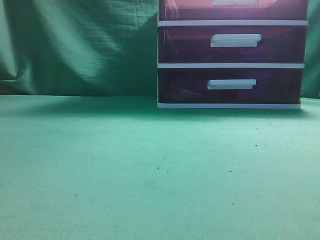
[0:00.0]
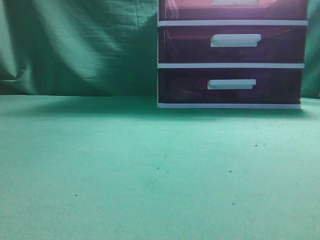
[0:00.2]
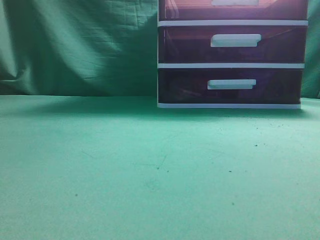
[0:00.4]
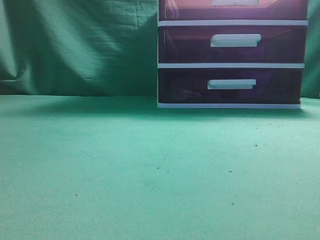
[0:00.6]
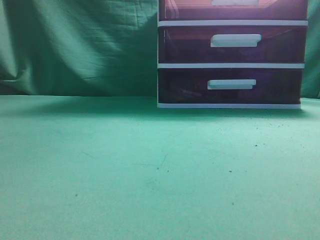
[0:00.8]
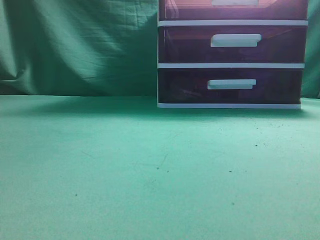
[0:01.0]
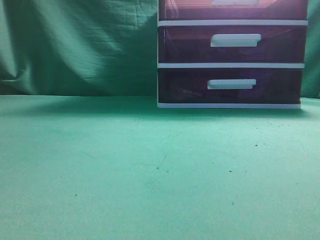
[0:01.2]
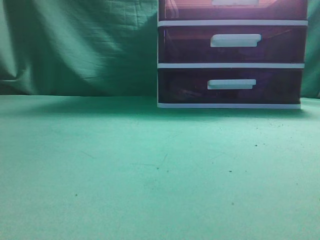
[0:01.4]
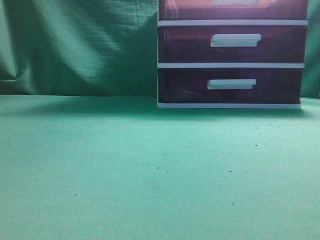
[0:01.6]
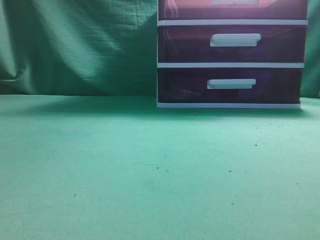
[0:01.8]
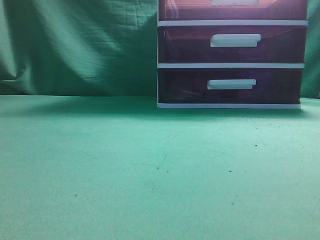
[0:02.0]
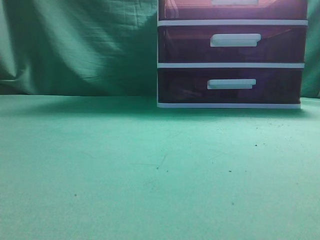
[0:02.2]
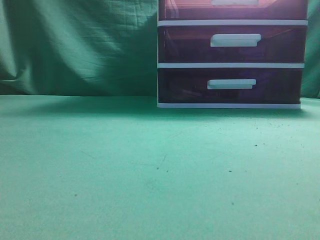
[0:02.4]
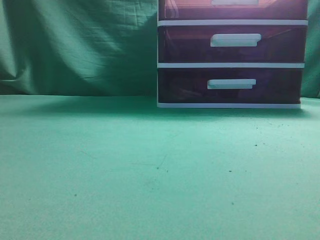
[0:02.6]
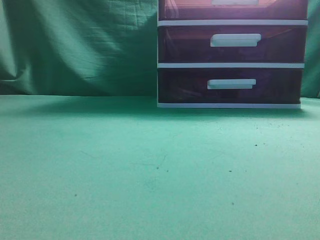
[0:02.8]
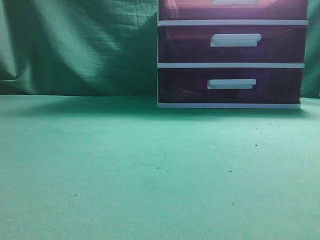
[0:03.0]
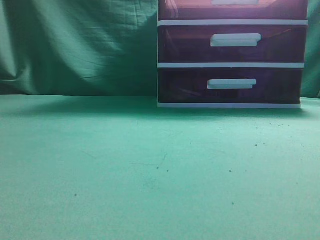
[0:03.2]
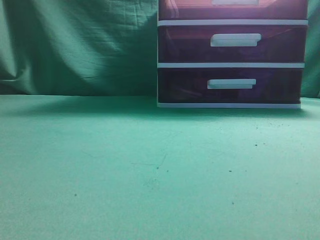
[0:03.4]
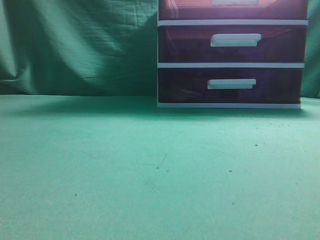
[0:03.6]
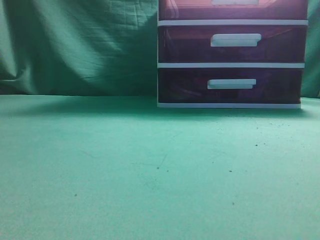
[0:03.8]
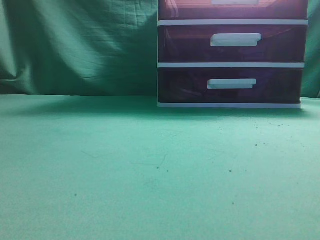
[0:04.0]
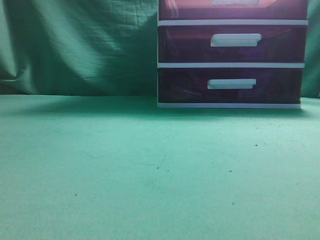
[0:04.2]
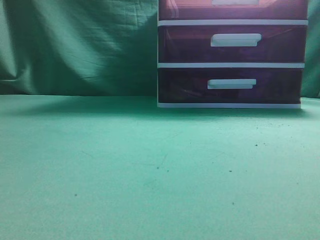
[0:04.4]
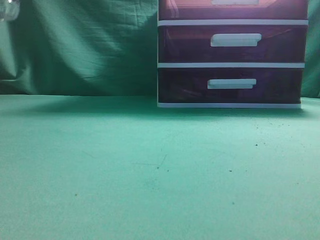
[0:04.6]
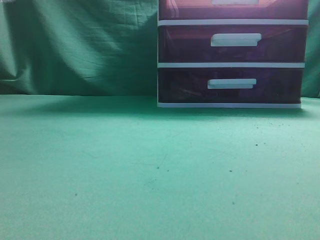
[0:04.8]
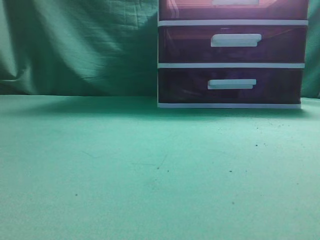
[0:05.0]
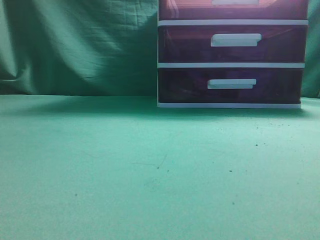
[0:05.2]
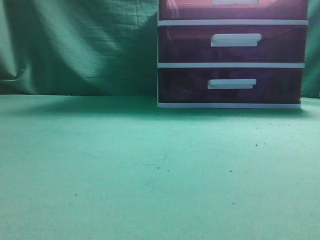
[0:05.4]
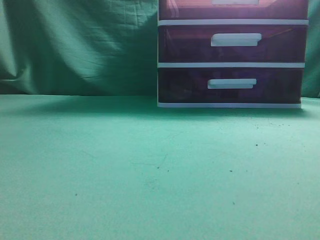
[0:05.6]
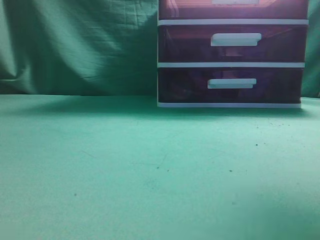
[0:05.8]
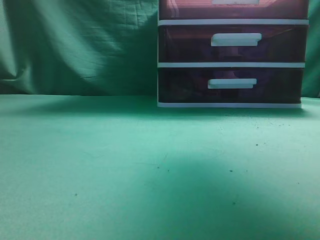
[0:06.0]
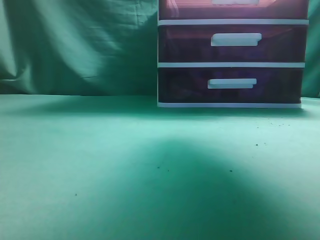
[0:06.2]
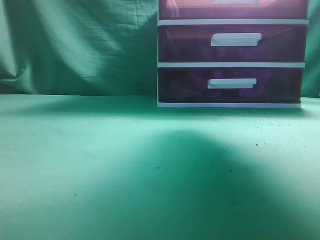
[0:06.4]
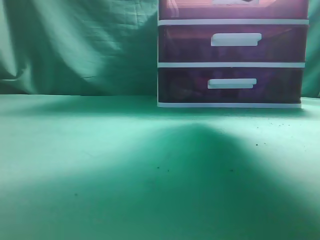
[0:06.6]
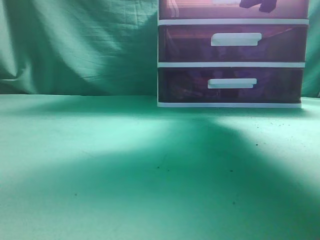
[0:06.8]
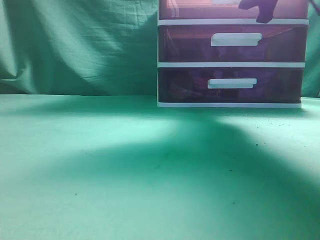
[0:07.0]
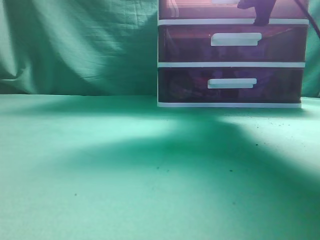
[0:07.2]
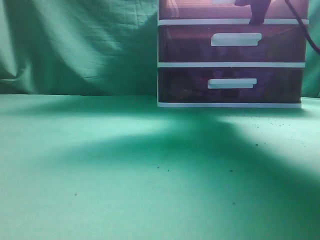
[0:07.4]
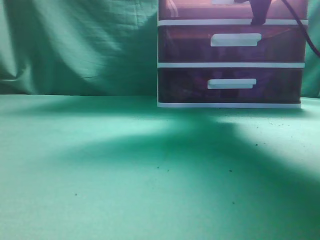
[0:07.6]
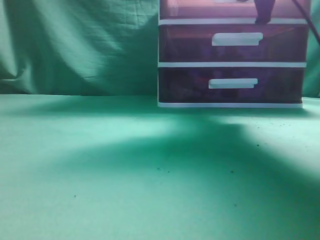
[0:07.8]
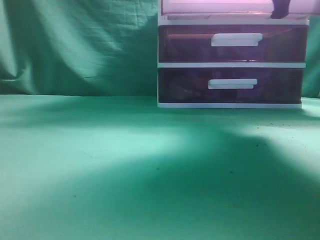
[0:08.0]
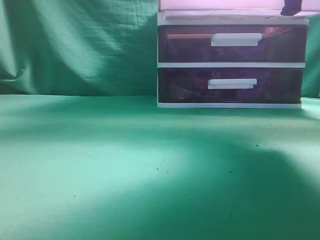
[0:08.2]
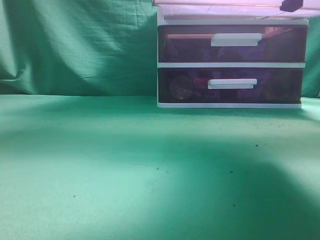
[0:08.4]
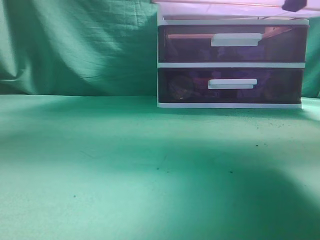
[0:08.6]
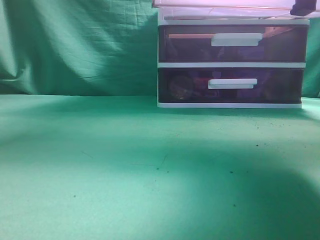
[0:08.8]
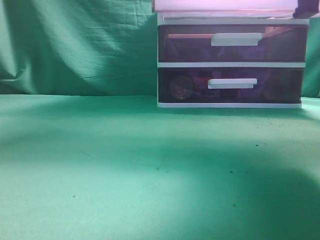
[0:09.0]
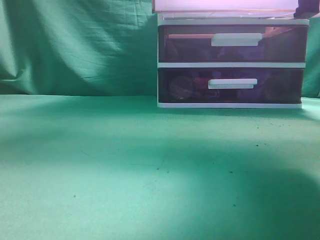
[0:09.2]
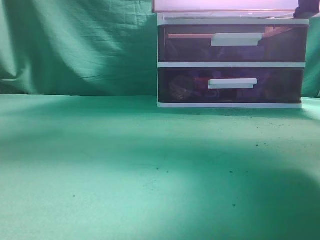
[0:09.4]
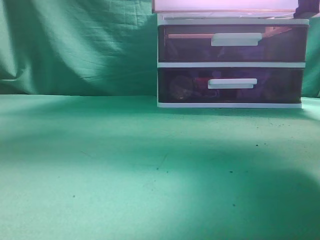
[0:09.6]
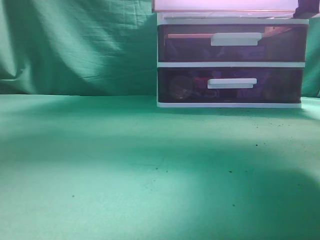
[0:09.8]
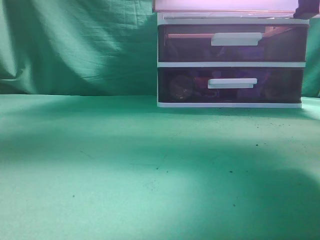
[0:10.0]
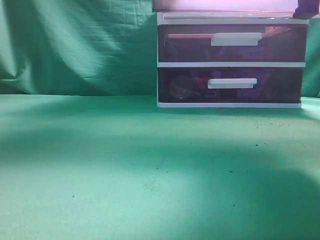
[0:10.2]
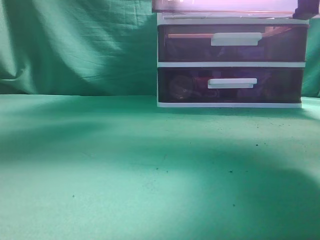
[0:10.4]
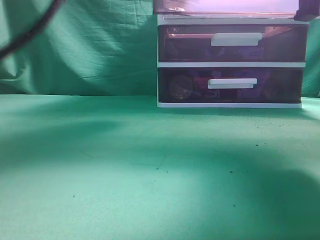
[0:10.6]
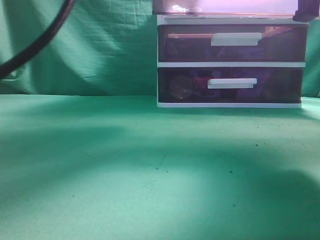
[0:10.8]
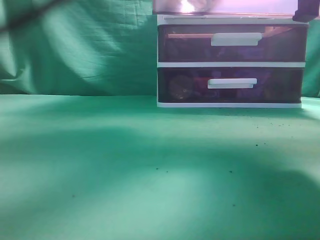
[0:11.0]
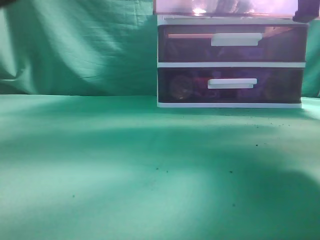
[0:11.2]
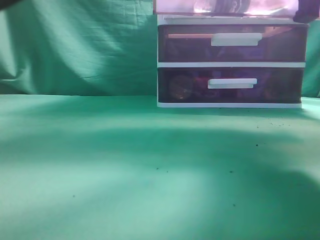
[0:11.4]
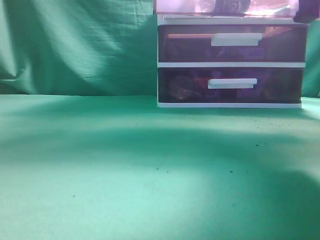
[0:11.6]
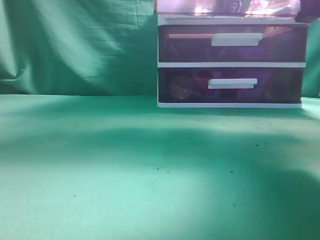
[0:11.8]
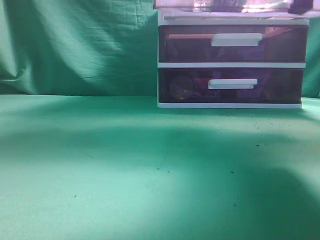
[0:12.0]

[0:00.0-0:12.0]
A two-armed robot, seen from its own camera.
Task of the whole recording: place the water bottle into the drawer.
Step, 0:00.0 to 0:08.8: Open the drawer.
Step, 0:09.0 to 0:11.2: Place the water bottle inside the drawer.
0:04.4 to 0:06.0: The left gripper heads upward and backward, covering roughly 10 cm. The right gripper is displaced forward and upward by approximately 35 cm.
0:06.0 to 0:07.6: The right gripper moves forward and downward, some 15 cm, and opens and closes again.
0:07.6 to 0:09.0: The right gripper heads backward, covering roughly 15 cm.
0:09.0 to 0:10.4: The left gripper shifts approximately 25 cm to the right and forward.
0:10.4 to 0:12.0: The left gripper travels upward, to the left and backward by some 20 cm, and closes its fingers.

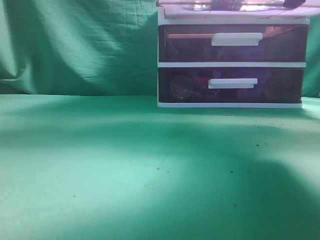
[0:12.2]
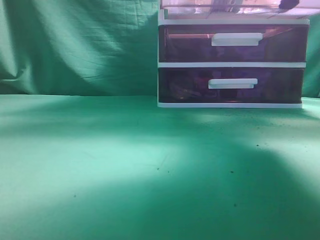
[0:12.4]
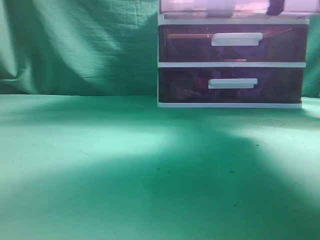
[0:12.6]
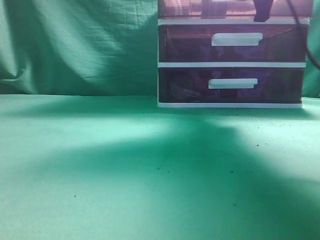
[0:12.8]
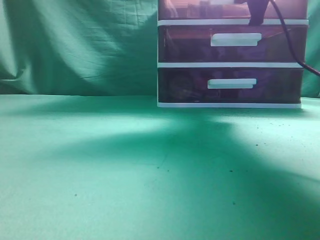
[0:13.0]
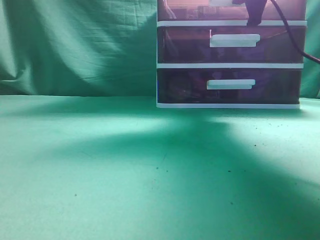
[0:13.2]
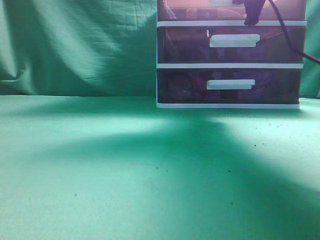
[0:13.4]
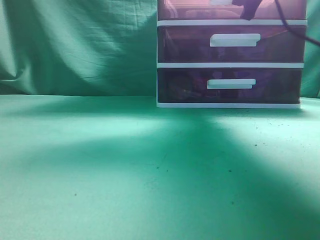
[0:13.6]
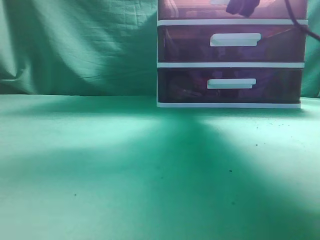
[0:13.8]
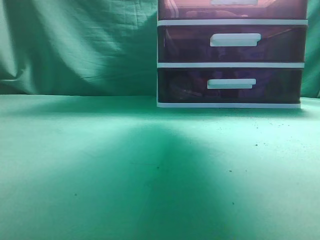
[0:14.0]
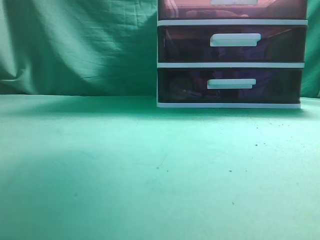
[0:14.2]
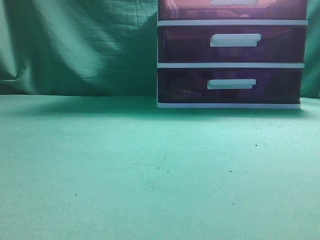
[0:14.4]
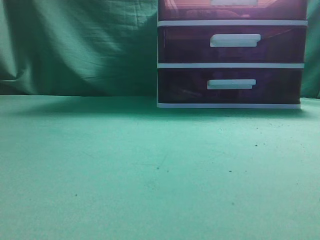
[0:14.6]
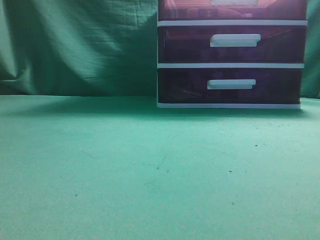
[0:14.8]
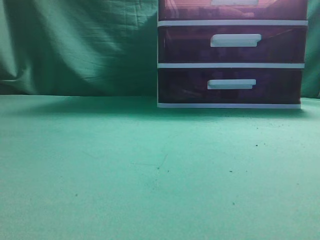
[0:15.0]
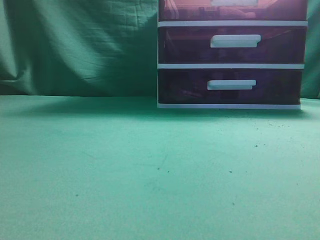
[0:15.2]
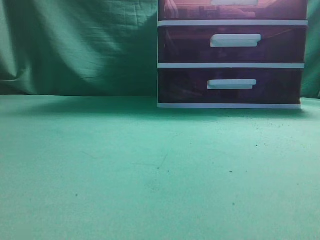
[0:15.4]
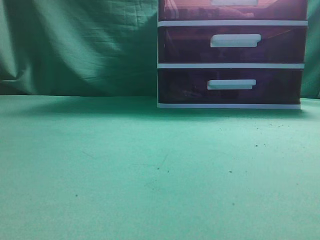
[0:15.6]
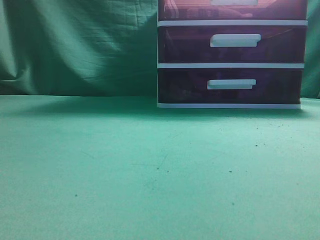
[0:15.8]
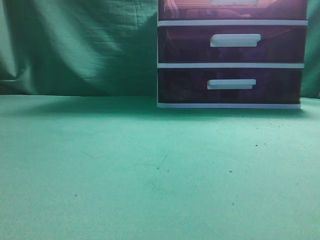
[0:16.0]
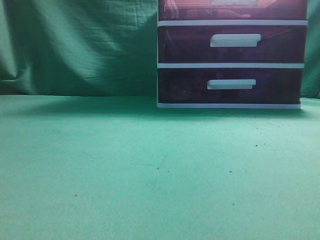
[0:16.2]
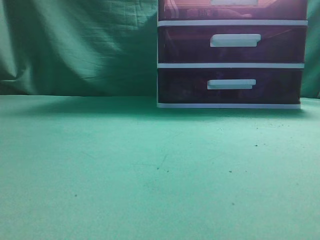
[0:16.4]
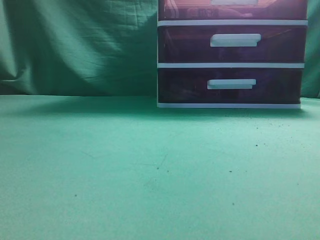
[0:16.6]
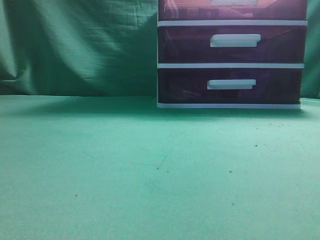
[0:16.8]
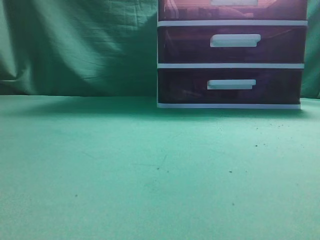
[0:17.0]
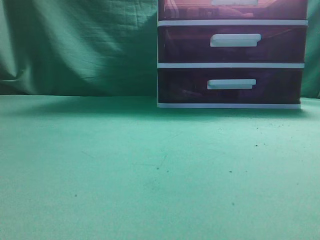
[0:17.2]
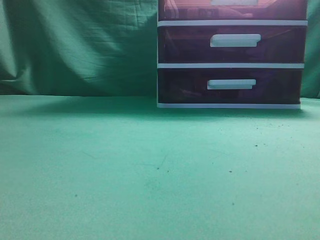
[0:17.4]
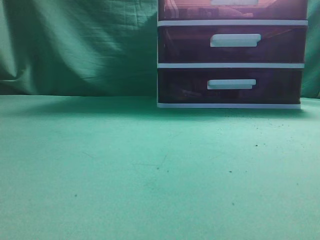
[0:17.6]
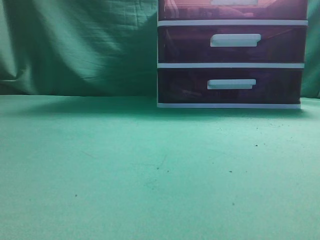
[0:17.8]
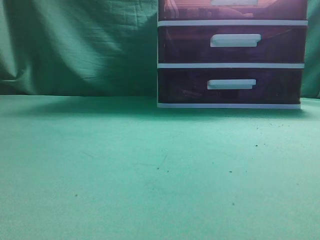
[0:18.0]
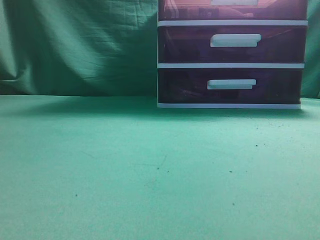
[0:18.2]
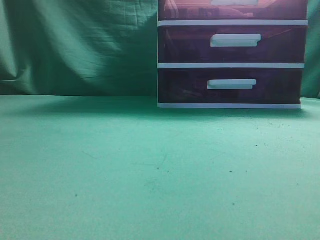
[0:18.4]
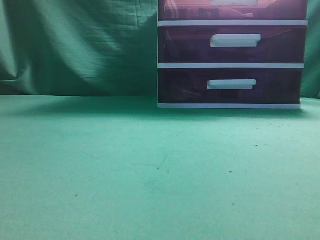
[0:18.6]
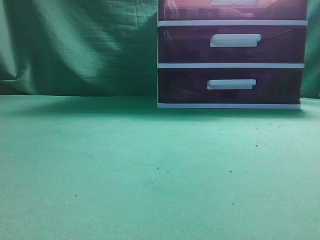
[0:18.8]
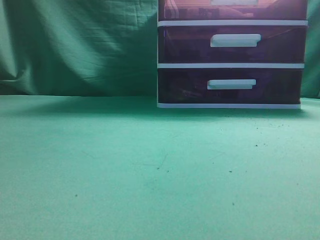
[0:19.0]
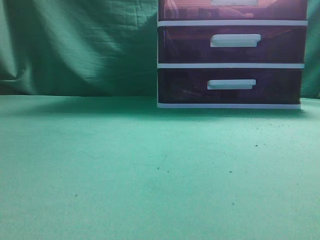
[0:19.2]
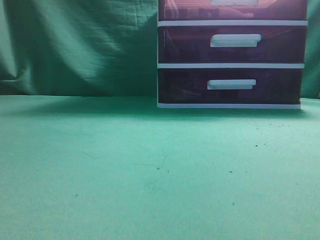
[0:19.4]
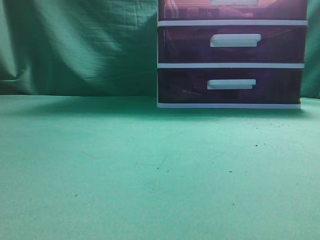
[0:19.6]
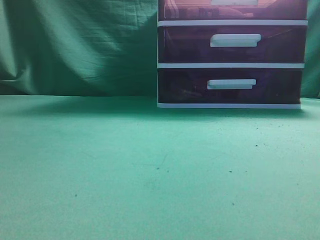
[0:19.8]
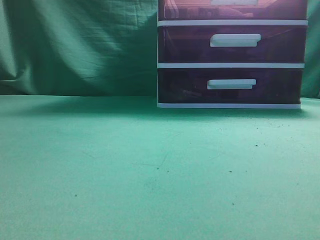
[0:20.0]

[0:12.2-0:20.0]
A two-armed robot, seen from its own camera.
Task of the whole recording: place the water bottle into the drawer.
Step, 0:12.2 to 0:13.8: Close the drawer.
0:12.2 to 0:13.8: The left gripper heads downward and backward, covering roughly 20 cm, while the right gripper moves forward, some 10 cm, and opens its fingers.
0:13.8 to 0:15.4: The right gripper travels backward by some 40 cm, and closes its fingers; the left gripper is displaced backward and to the left by some 20 cm.
